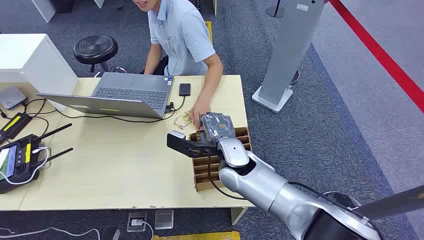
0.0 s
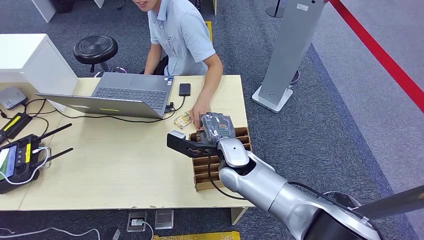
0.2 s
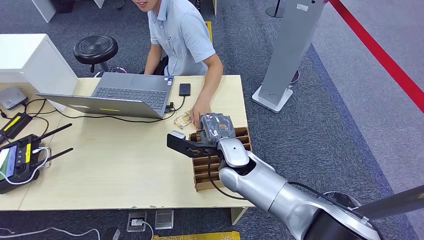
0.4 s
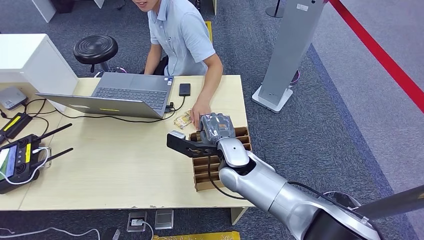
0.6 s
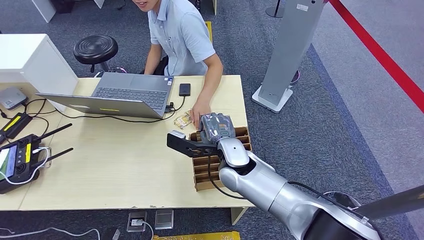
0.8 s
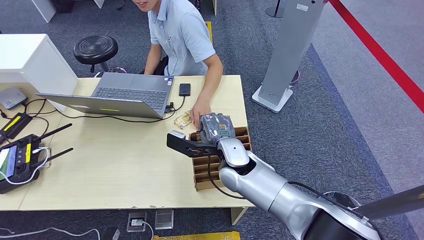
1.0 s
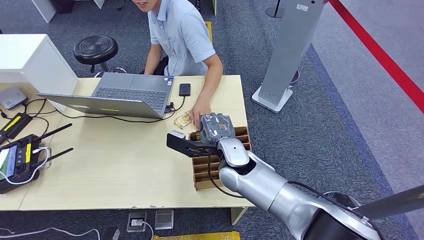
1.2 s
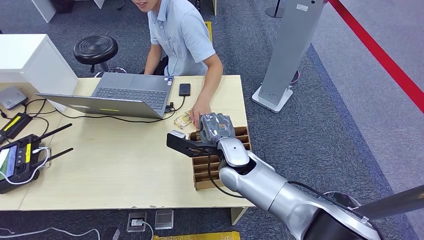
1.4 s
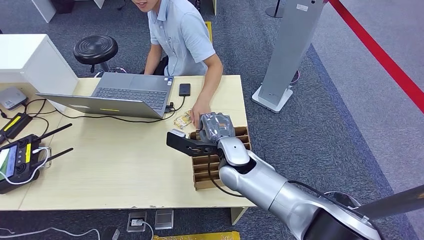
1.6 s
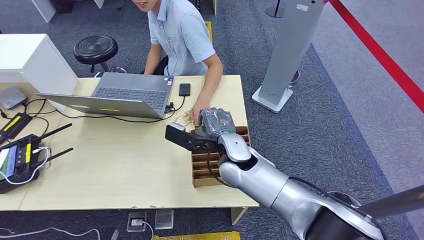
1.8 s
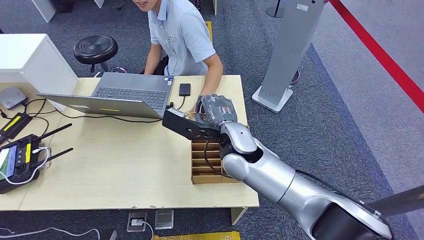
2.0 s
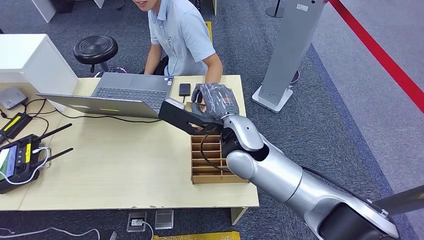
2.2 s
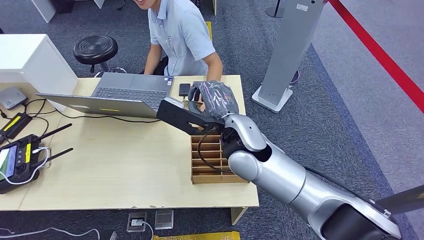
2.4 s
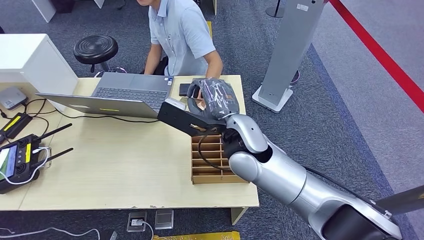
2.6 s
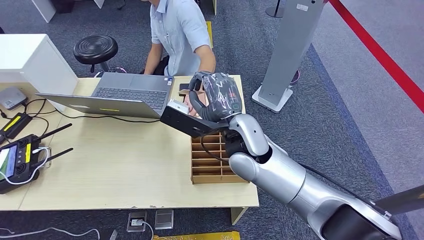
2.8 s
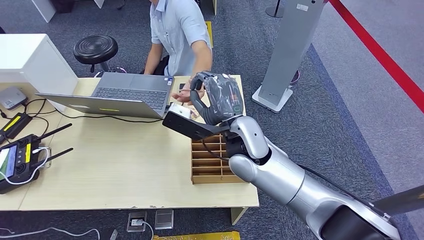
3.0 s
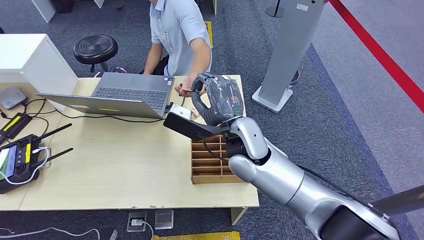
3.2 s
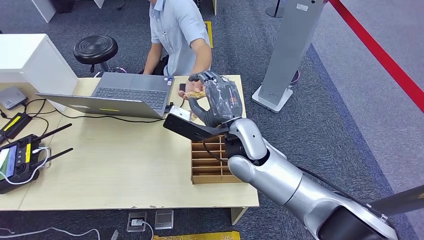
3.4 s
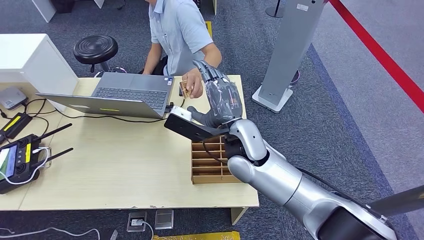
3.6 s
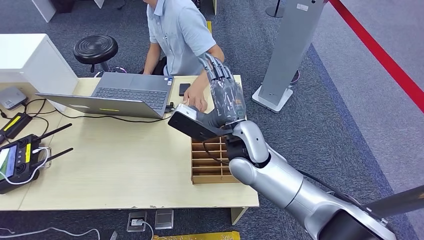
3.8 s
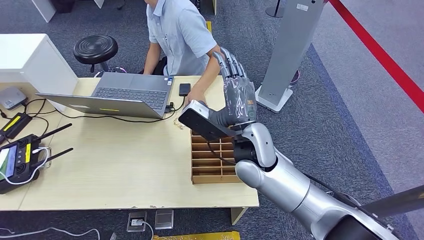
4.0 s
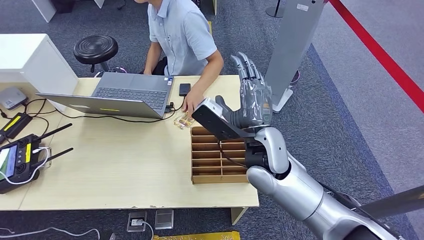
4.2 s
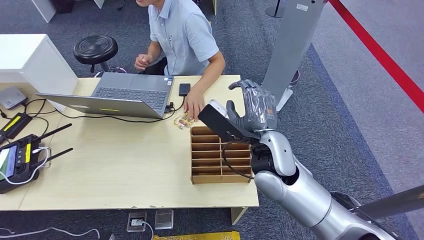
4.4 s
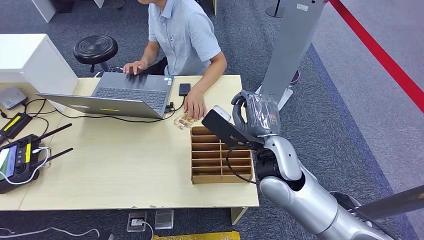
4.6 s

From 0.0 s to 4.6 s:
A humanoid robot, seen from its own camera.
Step, from 0.0 s to 2.2 s: Pick up the key card from the card box.
Step, from 2.4 s to 4.6 s: Hand the key card to the target.
From 1.6 s to 3.0 s: The right hand heads upward, covering about 10 cm.
From 3.0 s to 4.6 s: The right hand travels to the right by approximately 5 cm.
